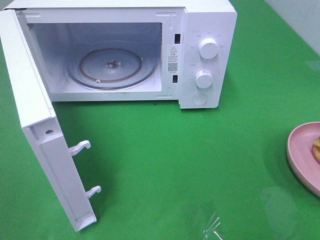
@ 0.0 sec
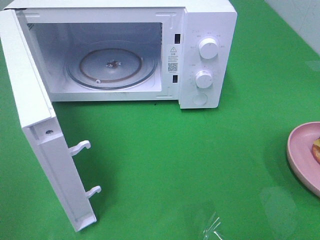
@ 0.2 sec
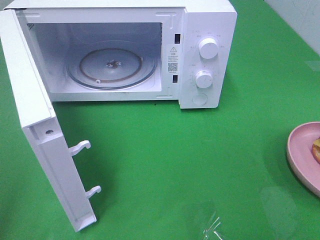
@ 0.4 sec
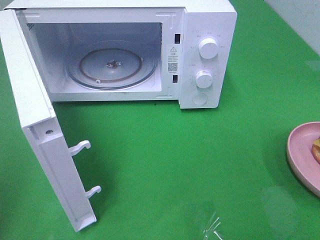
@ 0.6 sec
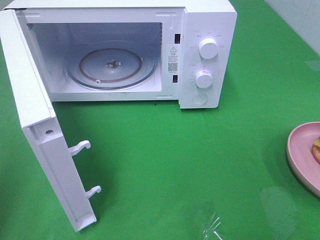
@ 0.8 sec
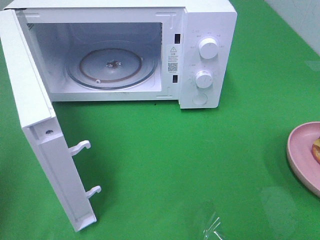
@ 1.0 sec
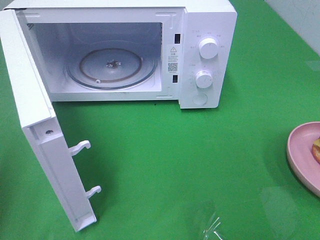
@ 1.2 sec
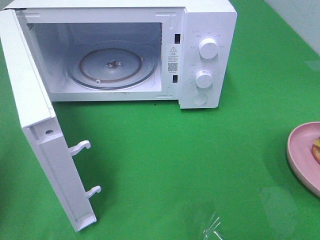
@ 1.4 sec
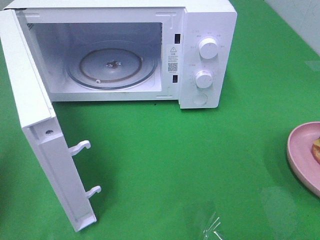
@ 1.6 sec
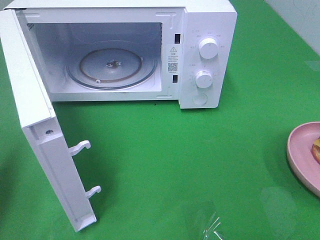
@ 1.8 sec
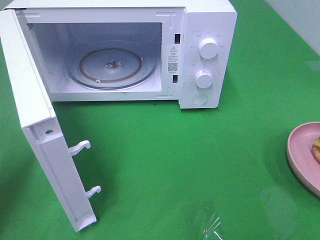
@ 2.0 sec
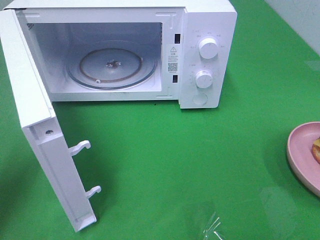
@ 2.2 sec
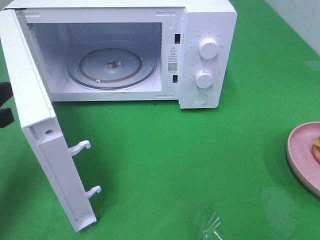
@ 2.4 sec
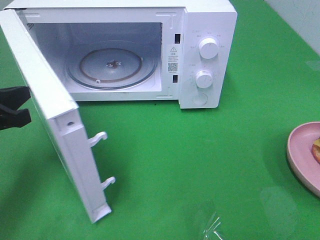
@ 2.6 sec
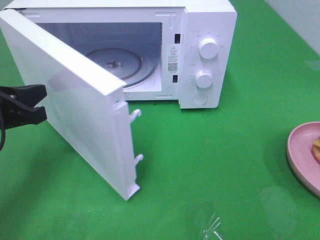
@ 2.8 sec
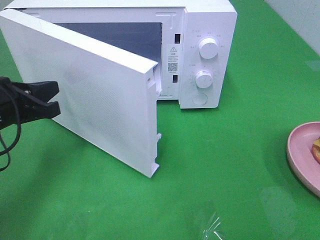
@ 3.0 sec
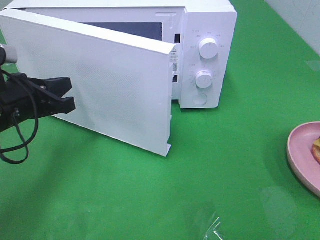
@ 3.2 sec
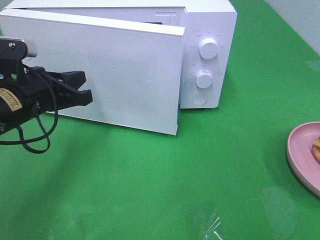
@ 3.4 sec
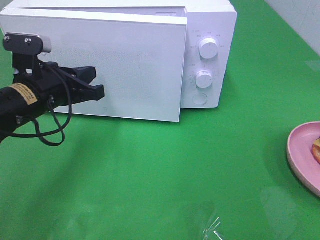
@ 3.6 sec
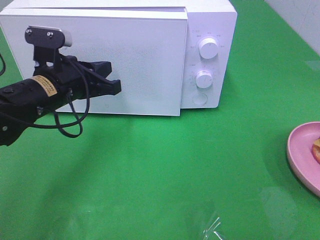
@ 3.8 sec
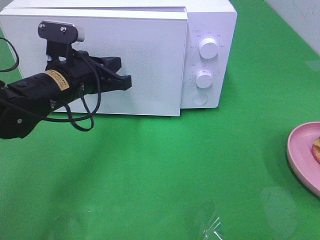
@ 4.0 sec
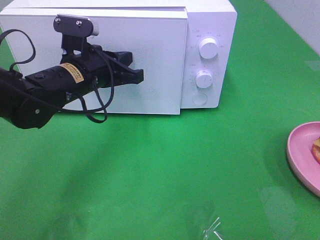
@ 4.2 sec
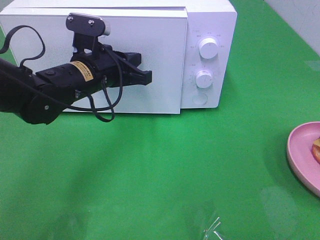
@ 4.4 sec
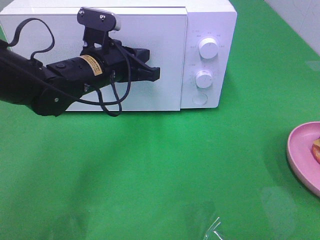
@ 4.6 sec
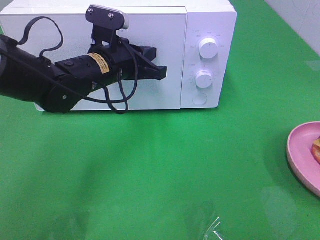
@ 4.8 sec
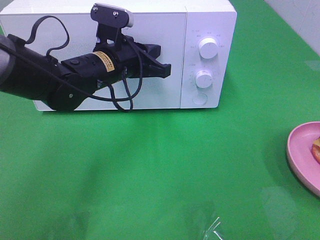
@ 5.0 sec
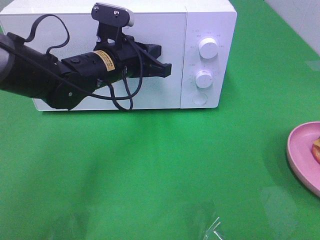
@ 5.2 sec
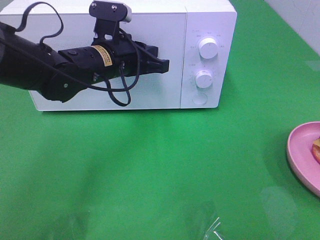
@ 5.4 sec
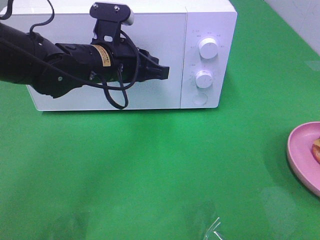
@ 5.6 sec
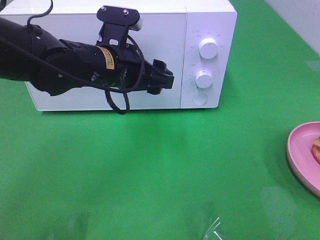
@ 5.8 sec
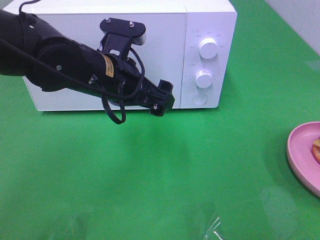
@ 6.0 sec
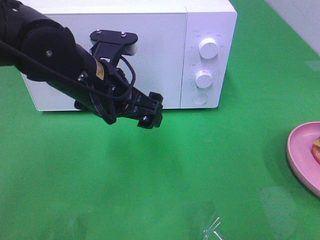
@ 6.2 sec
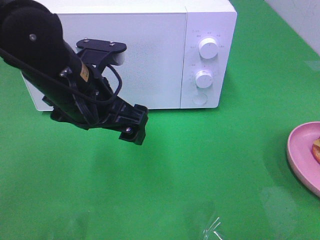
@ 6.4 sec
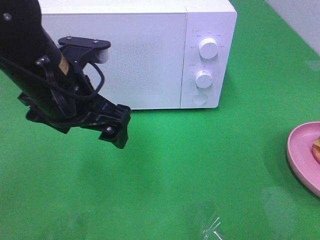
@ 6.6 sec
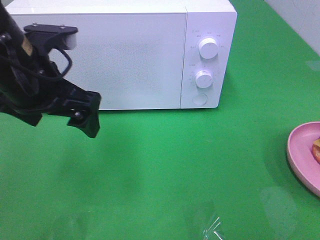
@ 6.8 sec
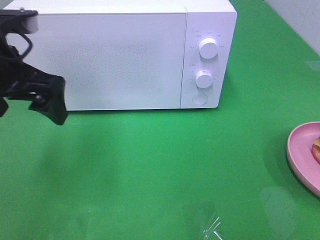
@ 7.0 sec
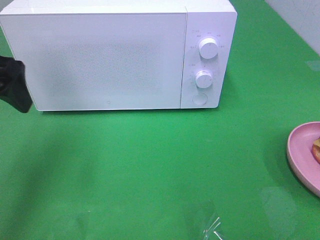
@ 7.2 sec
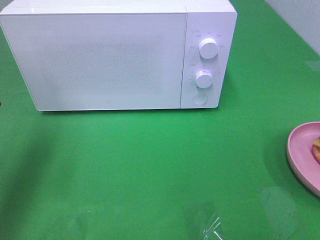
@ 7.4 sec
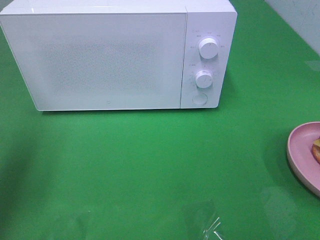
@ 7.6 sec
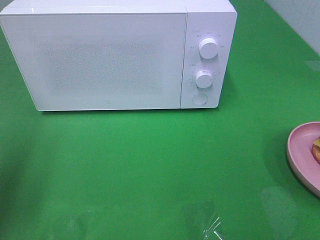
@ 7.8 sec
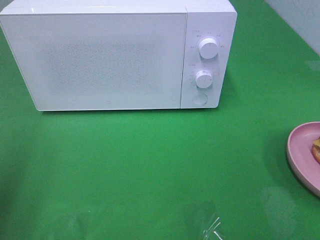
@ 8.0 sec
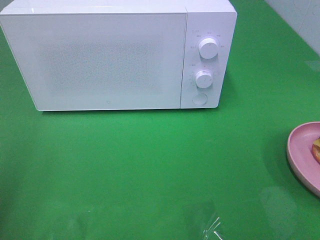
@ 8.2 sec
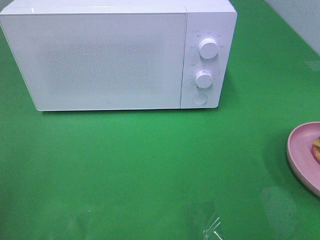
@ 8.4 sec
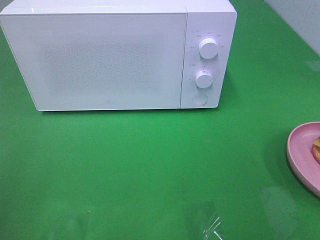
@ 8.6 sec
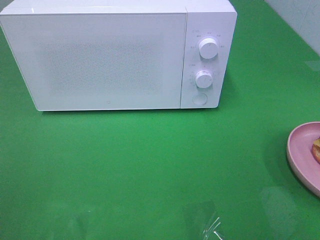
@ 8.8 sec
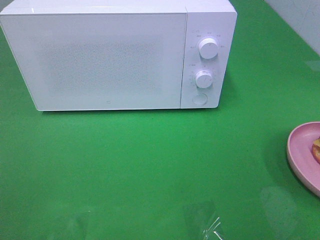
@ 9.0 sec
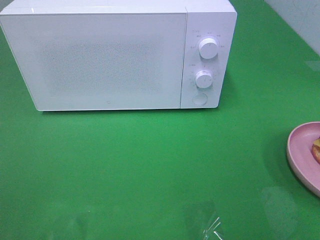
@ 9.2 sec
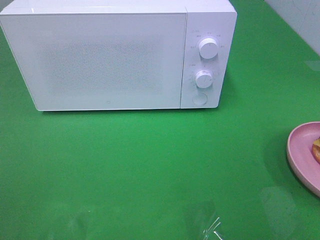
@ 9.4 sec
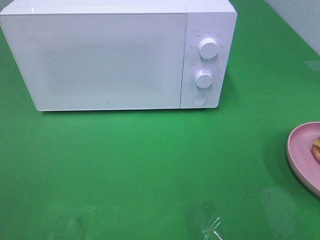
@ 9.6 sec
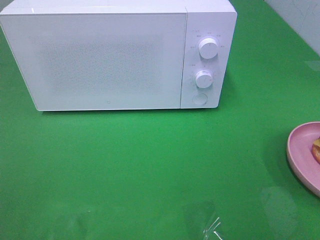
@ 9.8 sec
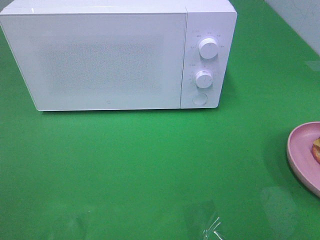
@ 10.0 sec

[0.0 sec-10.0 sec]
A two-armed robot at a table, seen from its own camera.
Task of the whole recording: Heat the burger.
Step, 0.0 sec to 5.8 sec: Left hand: close the microwave door.
1.4 sec to 2.8 sec: The left gripper goes some 15 cm forward, to the right and downward.
2.8 sec to 4.2 sec: The left gripper is displaced to the right and forward by approximately 15 cm.
4.2 sec to 5.8 sec: The left gripper shifts by about 5 cm, and opens up.
5.8 sec to 7.2 sec: The left gripper travels to the left and upward by approximately 20 cm.
7.2 sec to 8.6 sec: The left gripper shifts about 20 cm backward.

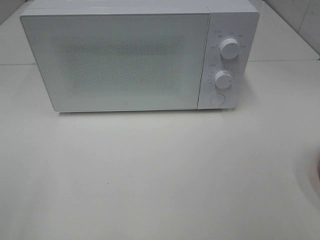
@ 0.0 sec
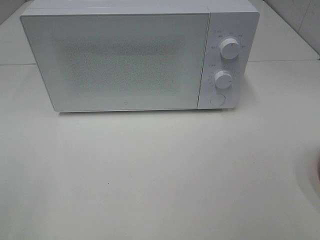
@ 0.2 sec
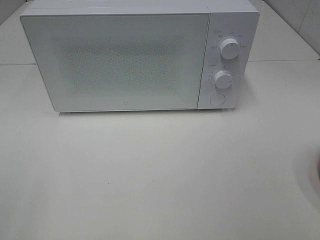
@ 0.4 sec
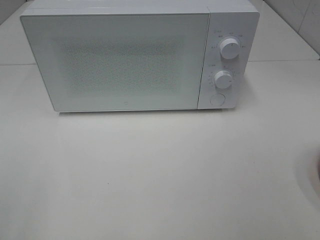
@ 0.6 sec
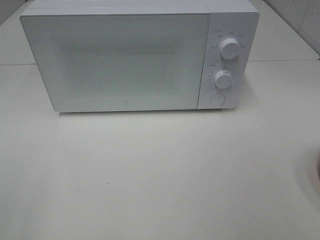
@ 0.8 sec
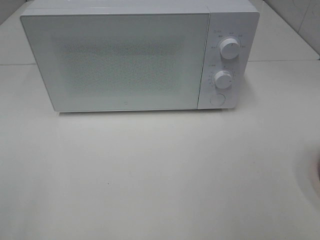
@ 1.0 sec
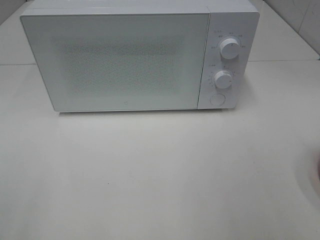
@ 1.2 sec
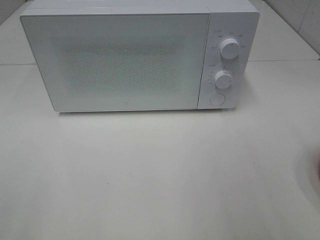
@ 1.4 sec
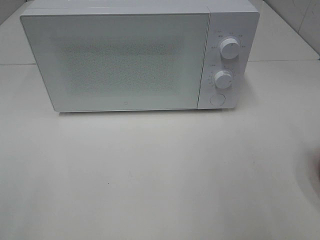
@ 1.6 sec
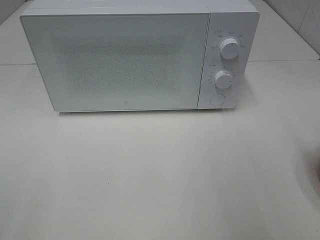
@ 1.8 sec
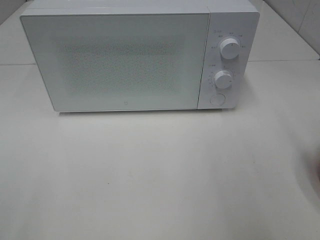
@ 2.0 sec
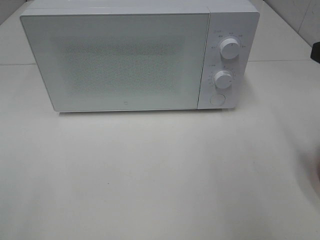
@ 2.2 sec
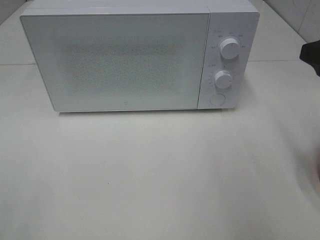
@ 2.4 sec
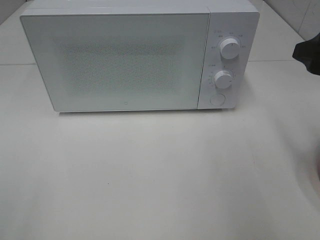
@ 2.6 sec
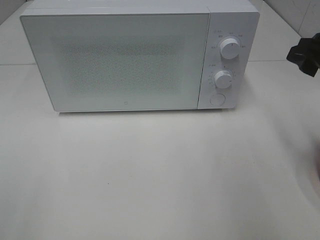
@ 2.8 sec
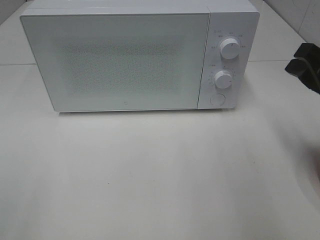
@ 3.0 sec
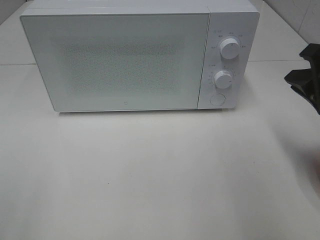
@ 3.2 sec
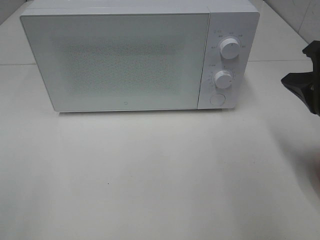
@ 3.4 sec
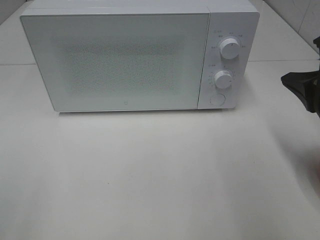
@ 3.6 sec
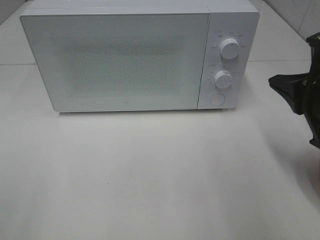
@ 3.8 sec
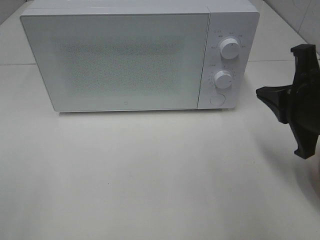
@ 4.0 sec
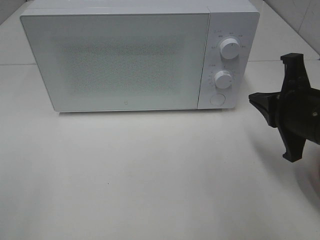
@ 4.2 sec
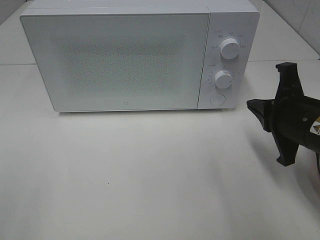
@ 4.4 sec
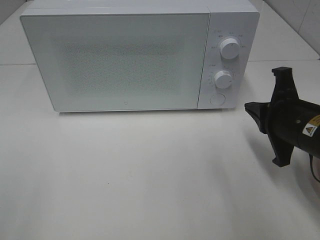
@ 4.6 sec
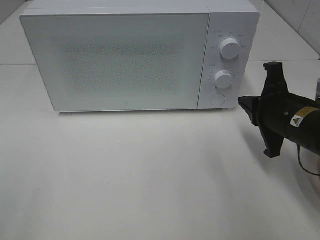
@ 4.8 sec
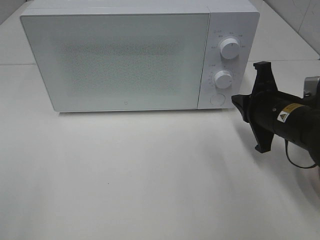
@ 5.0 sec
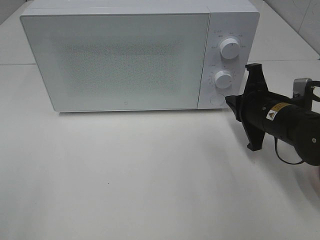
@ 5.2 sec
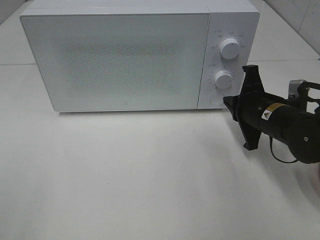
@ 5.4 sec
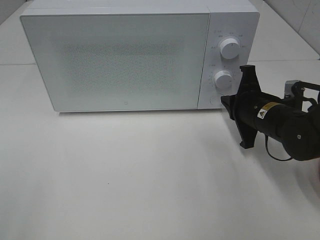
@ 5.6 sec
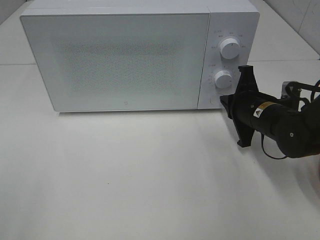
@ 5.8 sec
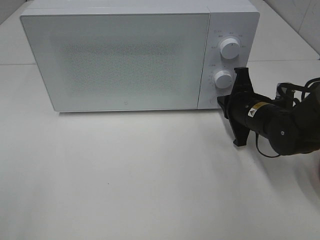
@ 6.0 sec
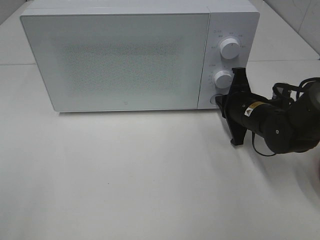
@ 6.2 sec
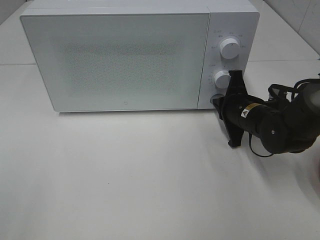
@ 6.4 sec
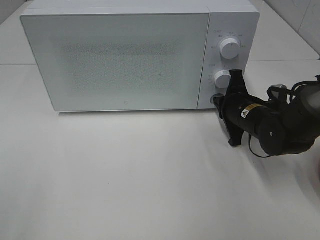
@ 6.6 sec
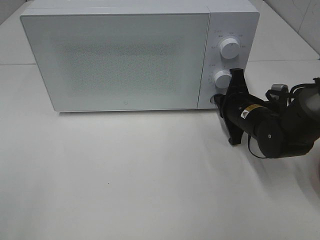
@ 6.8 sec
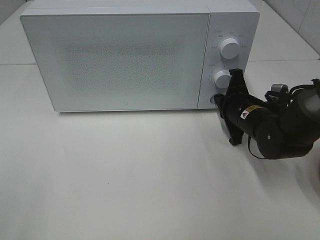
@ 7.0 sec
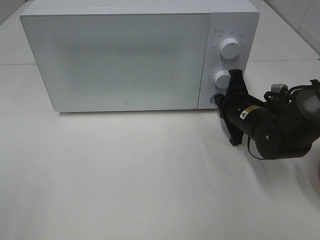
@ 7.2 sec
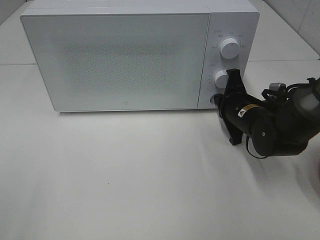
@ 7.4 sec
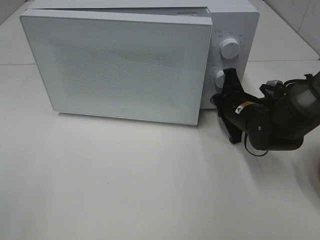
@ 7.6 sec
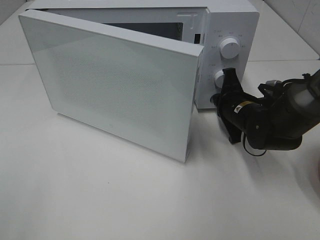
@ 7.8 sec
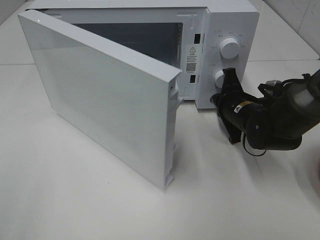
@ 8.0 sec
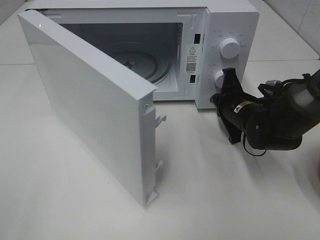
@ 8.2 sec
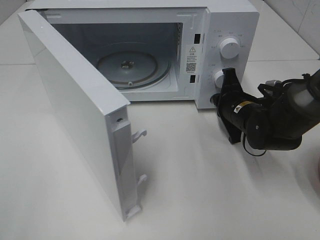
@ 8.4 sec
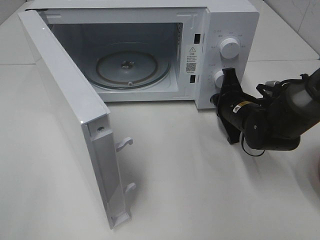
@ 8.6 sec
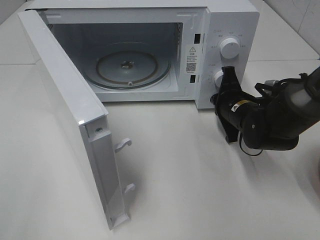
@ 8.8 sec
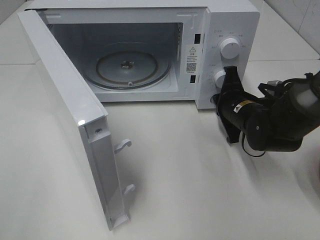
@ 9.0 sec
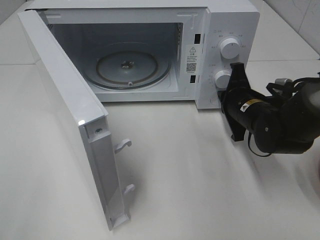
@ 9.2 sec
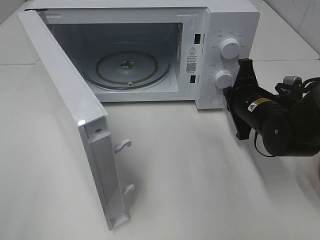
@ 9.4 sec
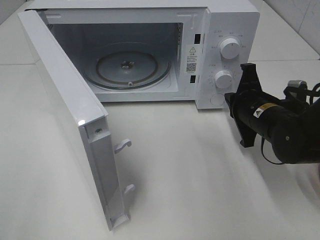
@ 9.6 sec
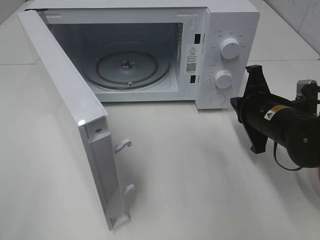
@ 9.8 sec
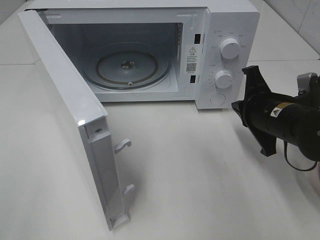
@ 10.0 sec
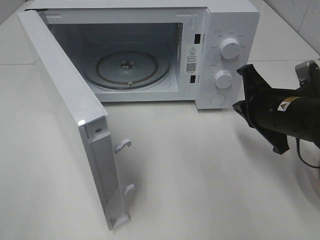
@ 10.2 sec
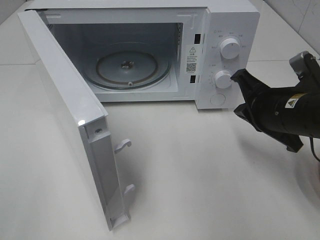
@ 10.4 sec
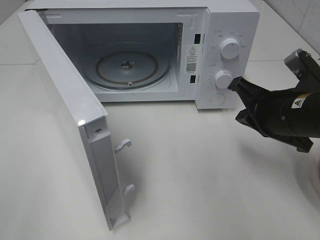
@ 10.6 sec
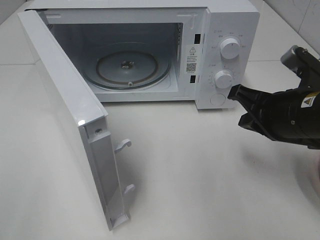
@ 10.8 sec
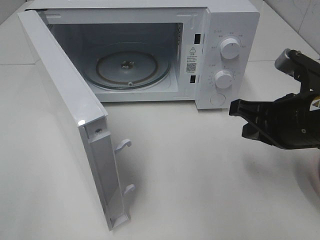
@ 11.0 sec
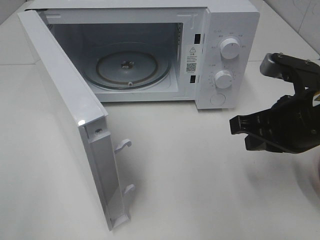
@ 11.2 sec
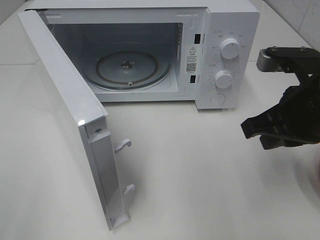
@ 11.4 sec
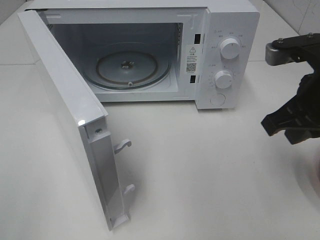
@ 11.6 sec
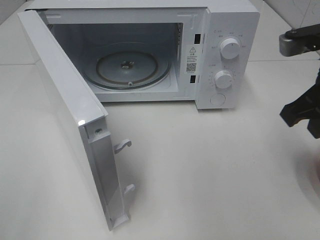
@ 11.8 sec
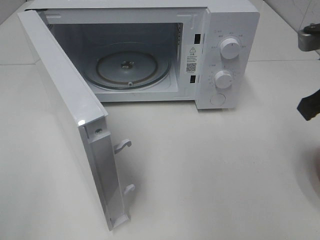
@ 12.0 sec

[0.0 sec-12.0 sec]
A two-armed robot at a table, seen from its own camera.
Task of the whole recording: Heat the burger.
Step, 0.0 sec to 9.2 sec: Right hand: press the switch.
1.6 sec to 3.0 sec: The right gripper goes about 10 cm forward and downward.
3.0 sec to 4.4 sec: The right gripper goes roughly 5 cm downward, and closes.
4.4 sec to 6.0 sec: The right gripper moves forward and downward, approximately 10 cm.
6.0 sec to 7.6 sec: The grippers make only small movements.
9.0 sec to 10.4 sec: The right gripper travels backward and upward by roughly 10 cm.
10.4 sec to 12.0 sec: The right gripper travels upward by roughly 10 cm.
